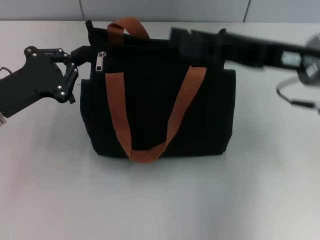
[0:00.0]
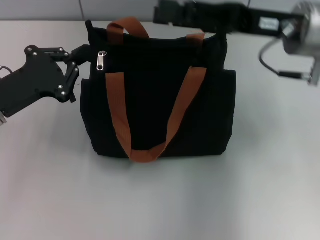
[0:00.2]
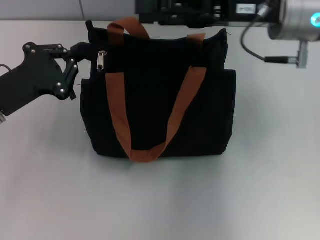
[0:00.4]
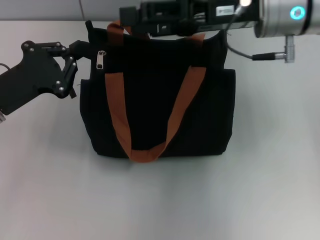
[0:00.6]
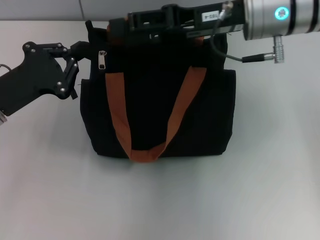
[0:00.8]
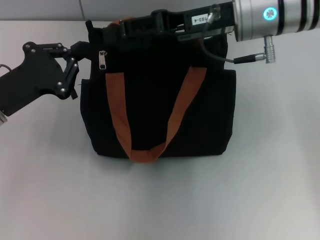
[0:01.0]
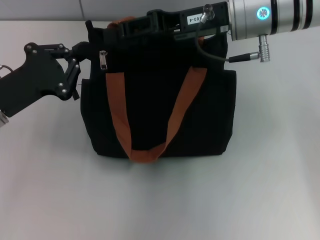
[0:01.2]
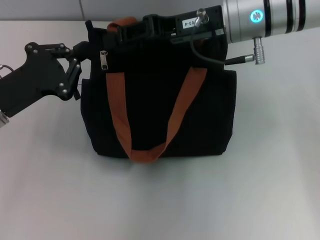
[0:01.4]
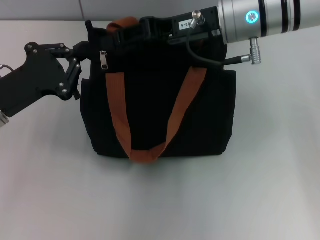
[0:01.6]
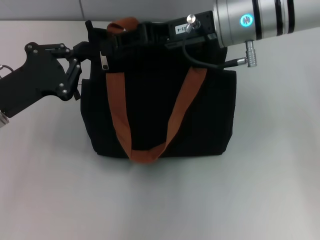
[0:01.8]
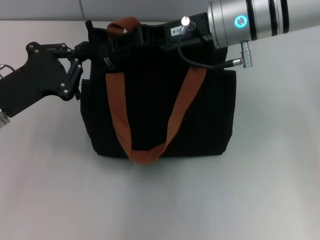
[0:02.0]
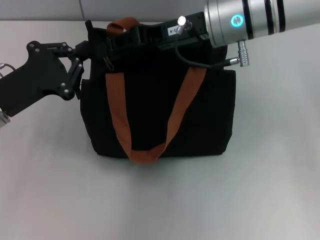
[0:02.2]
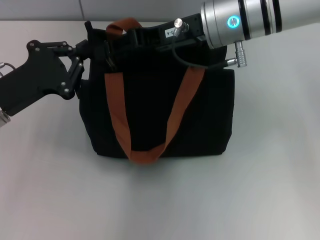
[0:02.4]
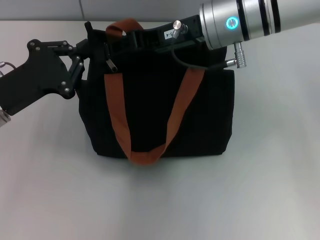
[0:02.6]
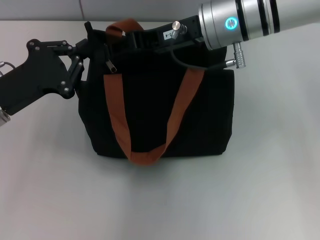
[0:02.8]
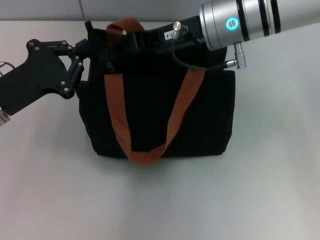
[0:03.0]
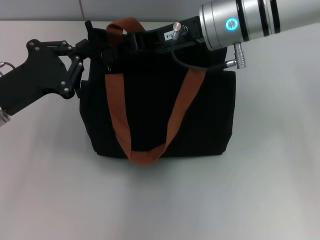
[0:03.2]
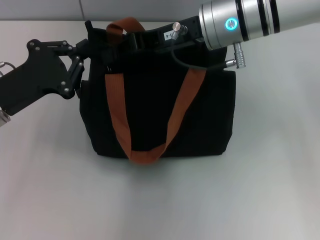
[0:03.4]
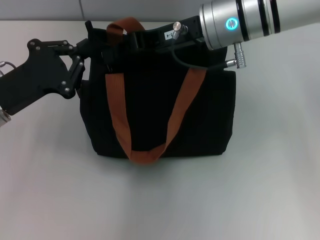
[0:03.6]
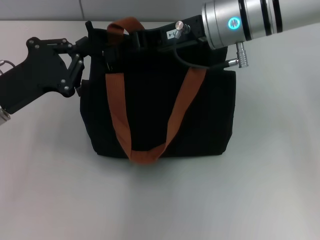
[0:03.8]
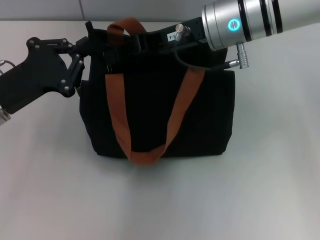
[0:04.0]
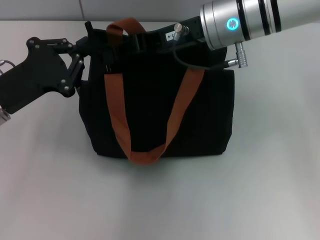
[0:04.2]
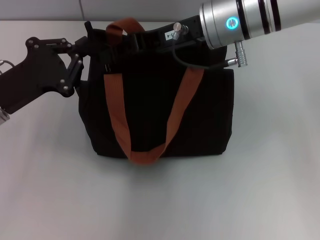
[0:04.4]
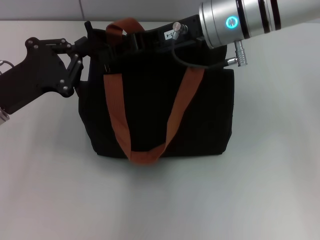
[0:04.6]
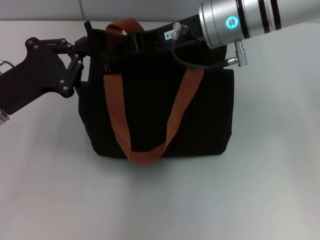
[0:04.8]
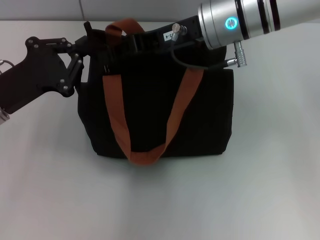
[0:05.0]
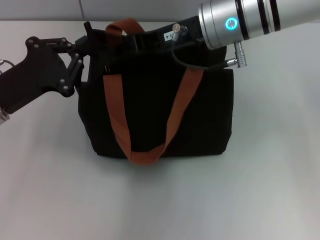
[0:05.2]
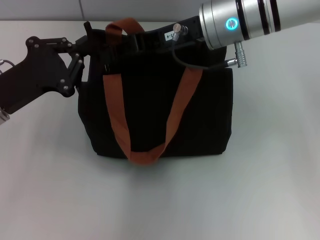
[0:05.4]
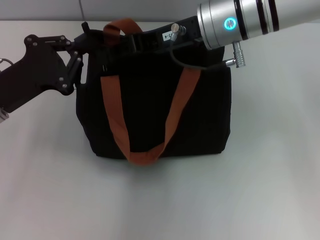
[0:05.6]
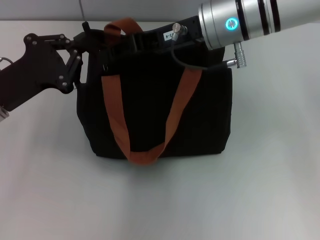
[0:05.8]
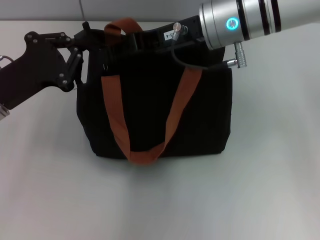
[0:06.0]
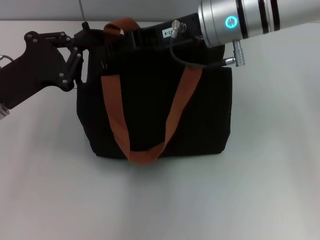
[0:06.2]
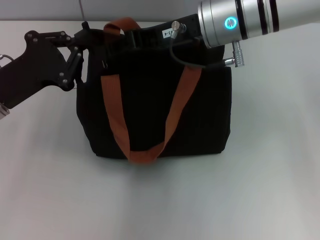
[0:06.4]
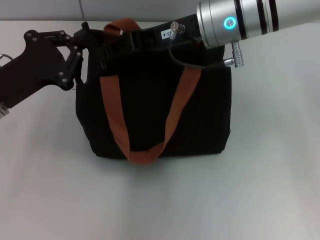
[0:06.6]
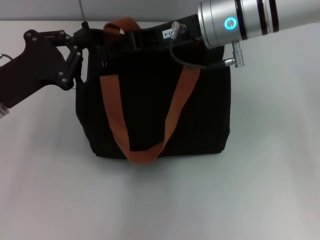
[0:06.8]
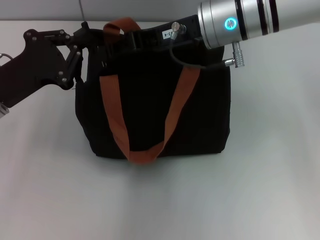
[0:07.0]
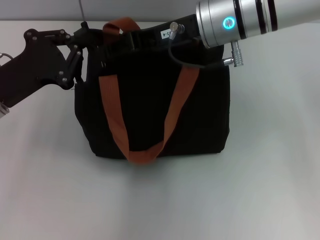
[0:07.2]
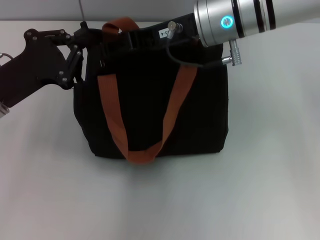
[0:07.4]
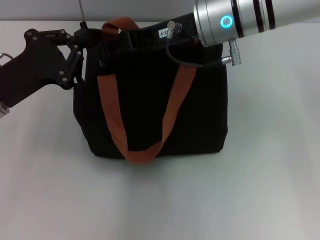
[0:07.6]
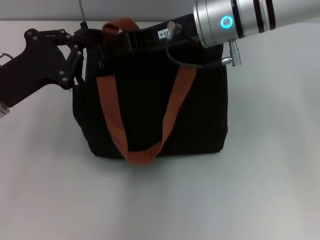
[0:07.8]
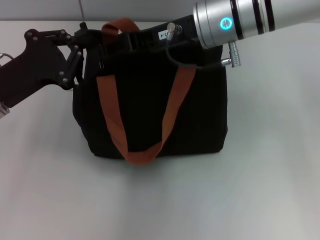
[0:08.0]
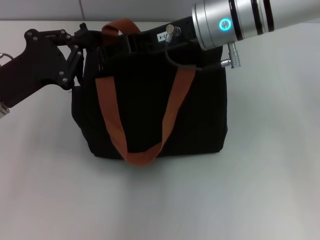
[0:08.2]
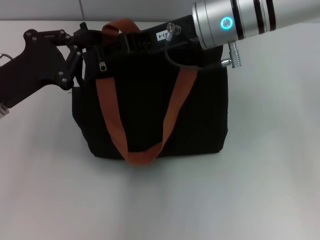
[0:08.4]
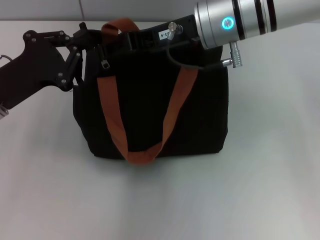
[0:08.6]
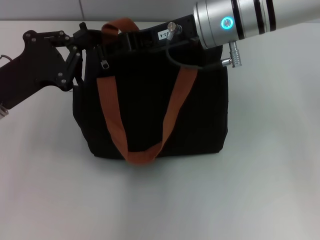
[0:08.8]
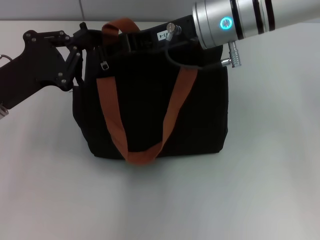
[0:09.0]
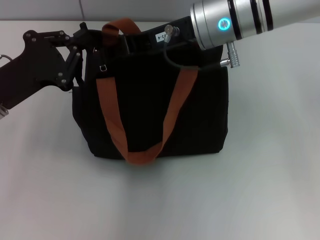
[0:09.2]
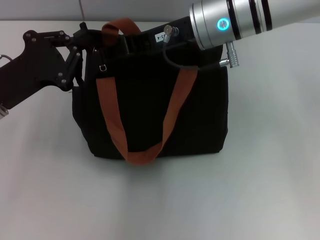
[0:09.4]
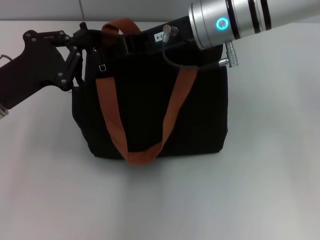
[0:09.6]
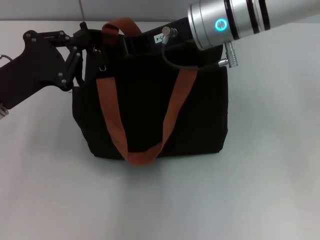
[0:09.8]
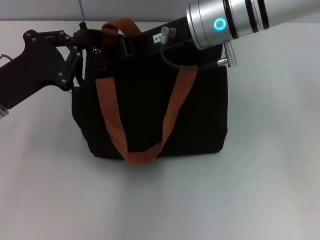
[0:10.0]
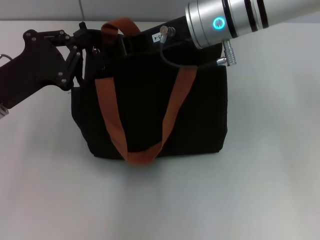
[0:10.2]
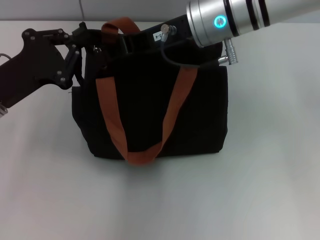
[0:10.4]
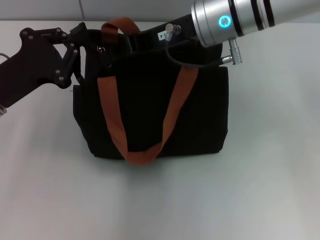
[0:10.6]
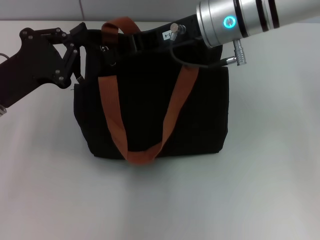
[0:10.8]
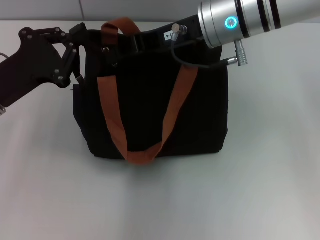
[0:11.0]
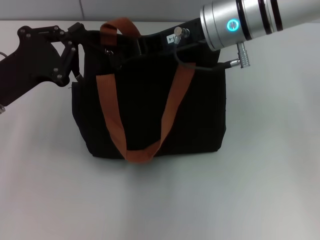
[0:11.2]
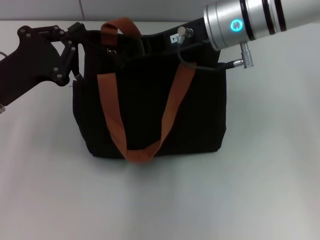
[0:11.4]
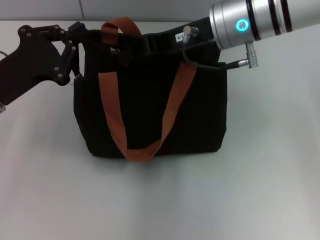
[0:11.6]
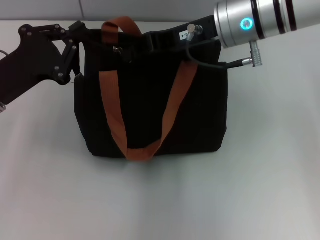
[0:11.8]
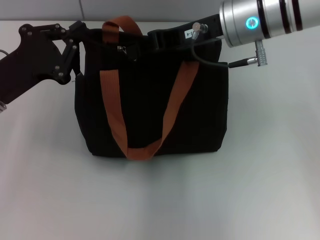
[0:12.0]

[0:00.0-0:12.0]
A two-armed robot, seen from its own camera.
0:00.0 to 0:01.6: The right gripper is displaced to the left and forward by some 10 cm, and closes its fingers.
0:01.6 to 0:03.0: There are only small adjustments of the grippers.
0:03.0 to 0:09.0: The two grippers keep their place.
0:09.0 to 0:10.4: The right gripper closes.
0:10.4 to 0:12.0: The grippers make only small movements.

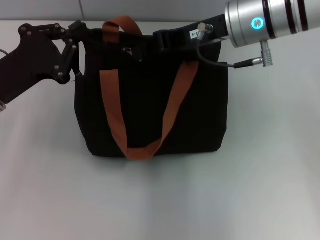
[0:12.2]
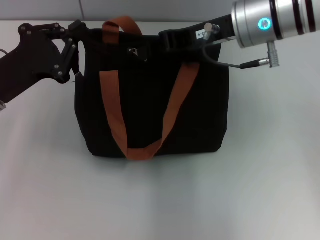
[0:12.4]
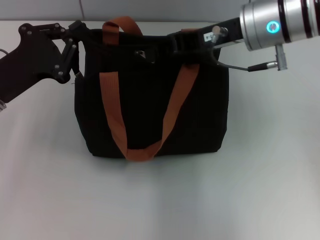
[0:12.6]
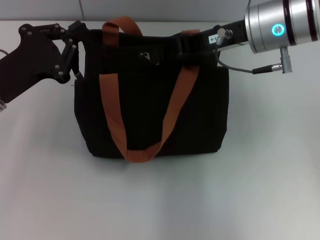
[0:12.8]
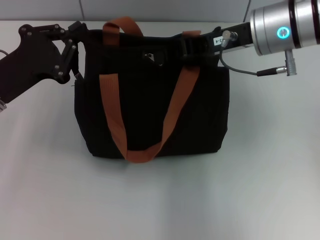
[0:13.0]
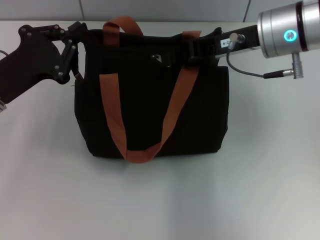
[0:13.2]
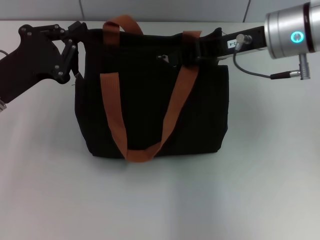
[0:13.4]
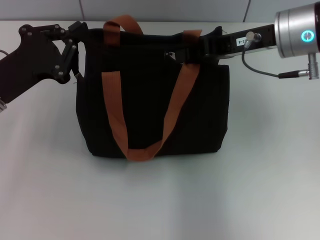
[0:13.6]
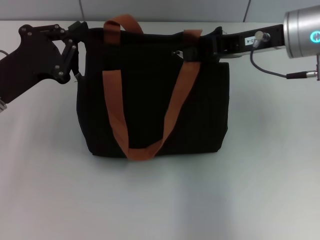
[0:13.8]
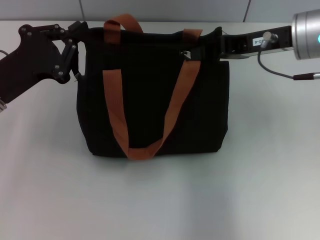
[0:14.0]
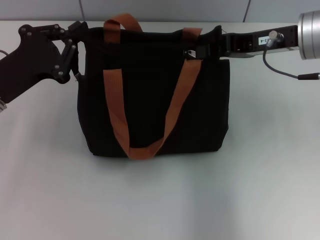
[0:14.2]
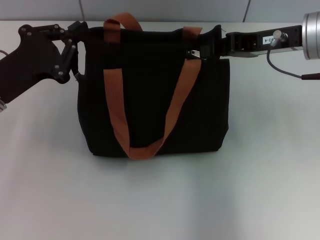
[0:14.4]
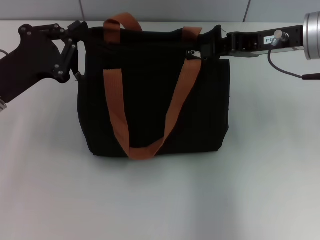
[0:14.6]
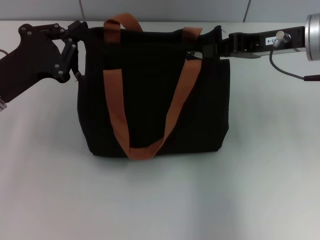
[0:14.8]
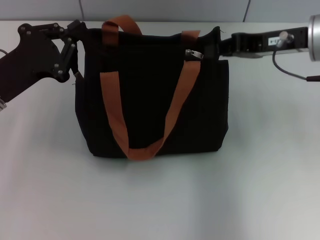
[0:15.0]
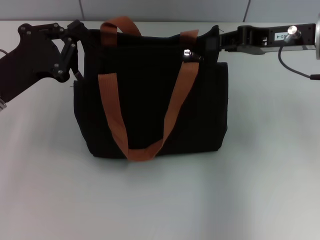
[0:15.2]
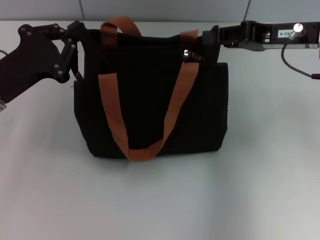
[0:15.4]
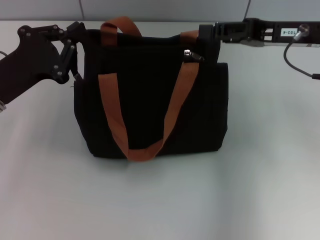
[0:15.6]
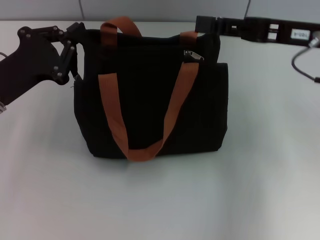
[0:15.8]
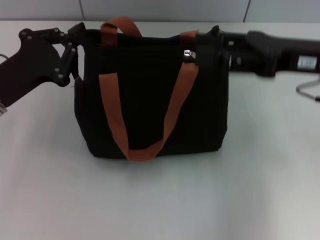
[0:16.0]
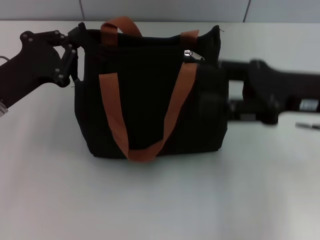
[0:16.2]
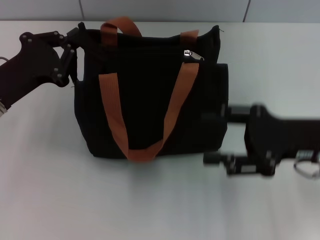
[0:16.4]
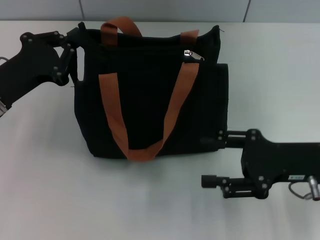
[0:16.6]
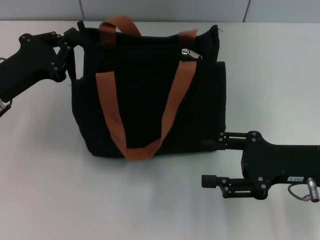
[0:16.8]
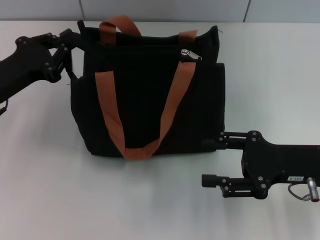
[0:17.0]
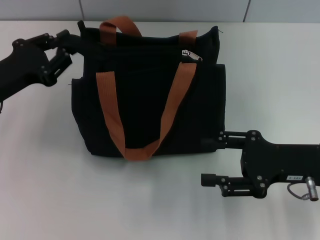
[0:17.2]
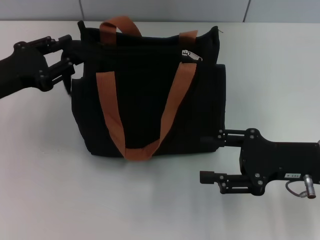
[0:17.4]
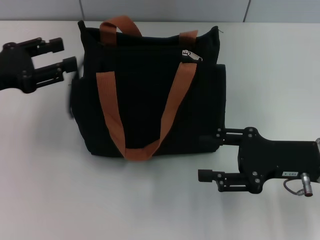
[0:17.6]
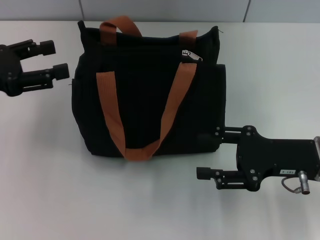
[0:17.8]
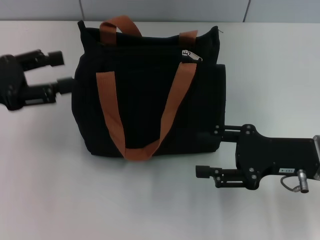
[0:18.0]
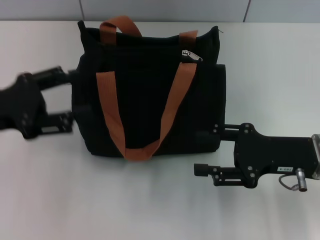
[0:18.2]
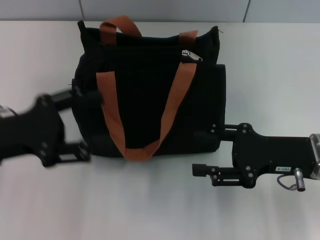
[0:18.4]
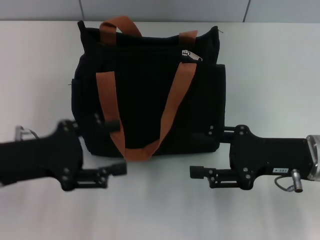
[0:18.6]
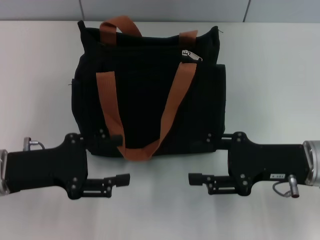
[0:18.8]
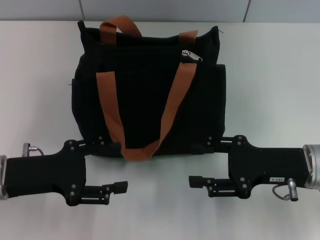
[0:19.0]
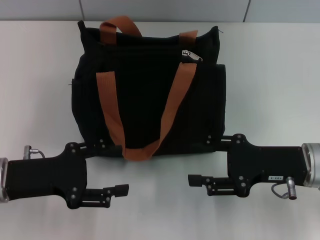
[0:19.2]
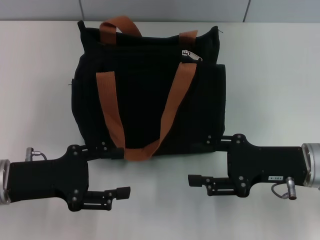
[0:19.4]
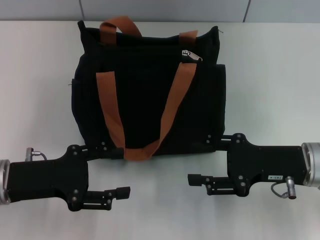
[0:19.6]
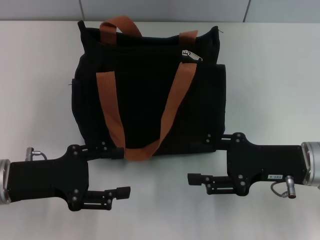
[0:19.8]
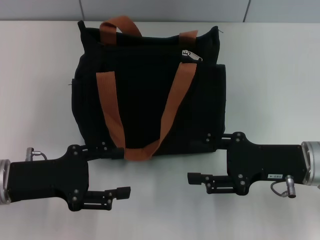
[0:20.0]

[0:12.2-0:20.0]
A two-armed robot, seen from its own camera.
Step, 0:12.2 to 0:15.6: Pull up the zipper with your right hand.
Step, 0:15.8 to 0:17.8: Grab the zipper with your left hand.
0:12.2 to 0:13.8: The right gripper moves to the right, about 5 cm.
0:13.8 to 0:15.4: There are only small adjustments of the grippers.
0:15.4 to 0:16.8: The right gripper goes roughly 15 cm backward and downward, and opens.
0:16.8 to 0:18.4: The left gripper shifts some 5 cm backward, and opens its fingers.
0:18.4 to 0:20.0: The left gripper is displaced downward by approximately 5 cm.
